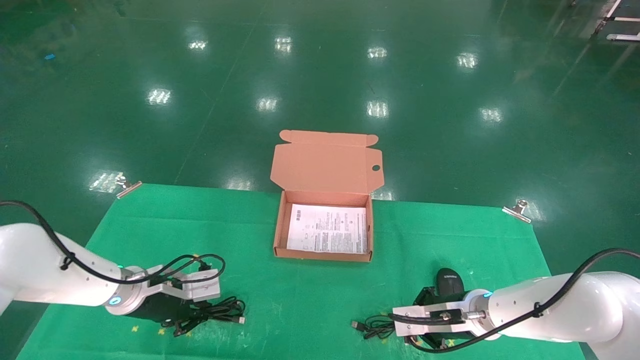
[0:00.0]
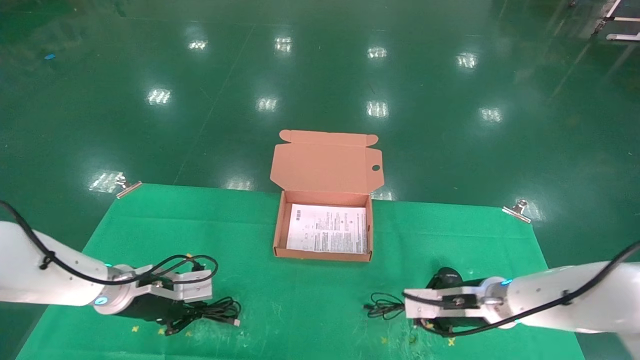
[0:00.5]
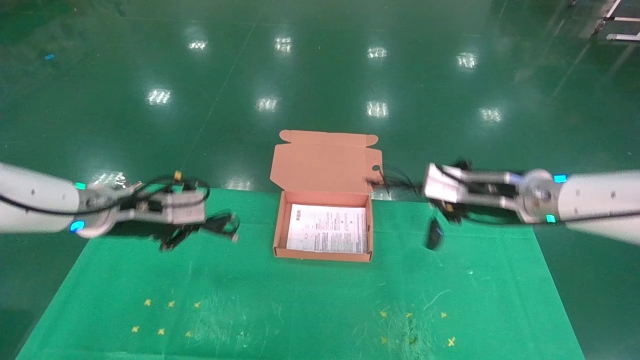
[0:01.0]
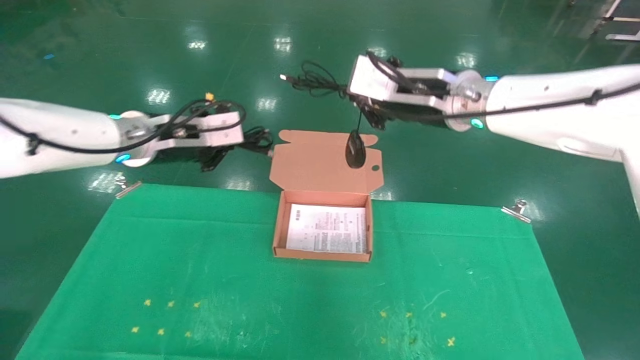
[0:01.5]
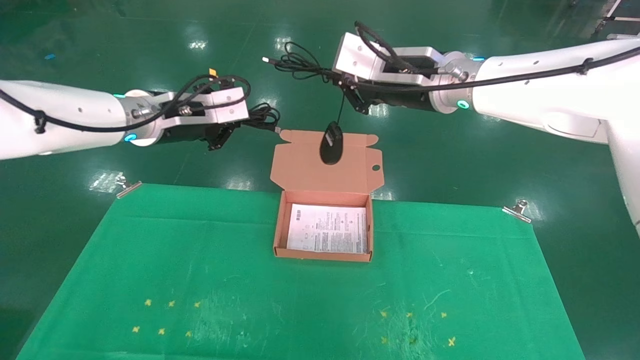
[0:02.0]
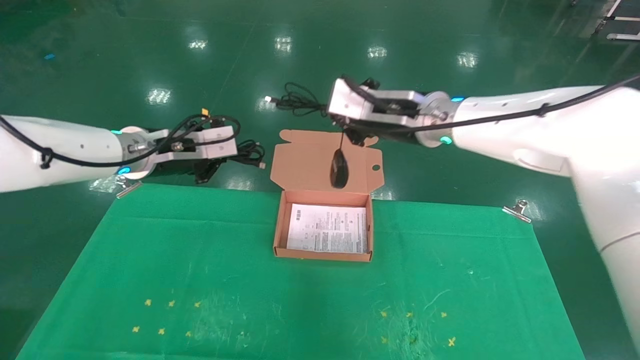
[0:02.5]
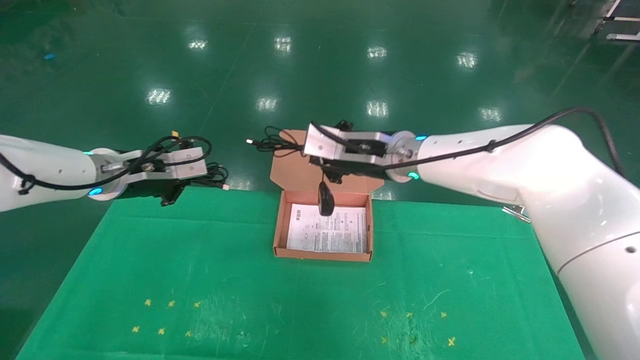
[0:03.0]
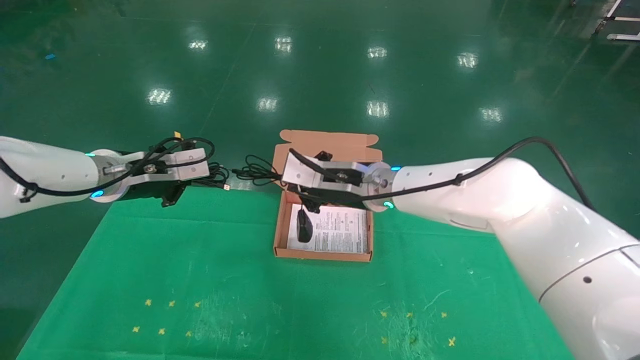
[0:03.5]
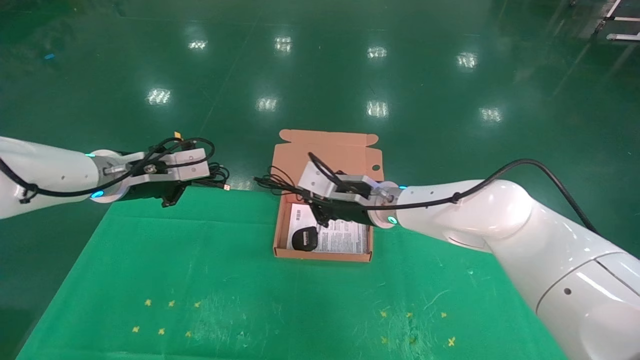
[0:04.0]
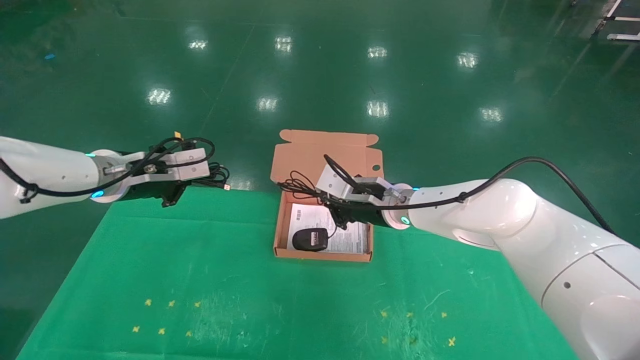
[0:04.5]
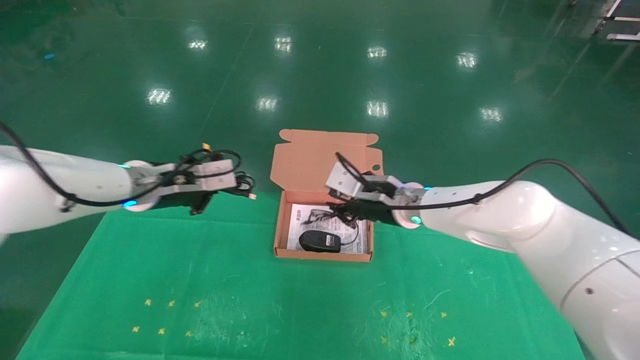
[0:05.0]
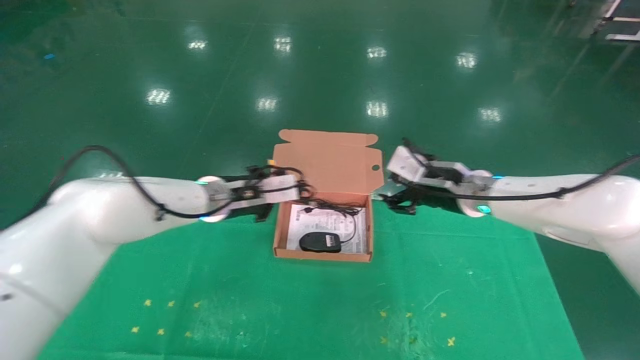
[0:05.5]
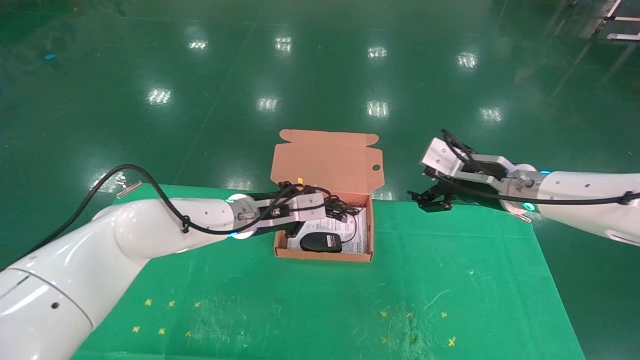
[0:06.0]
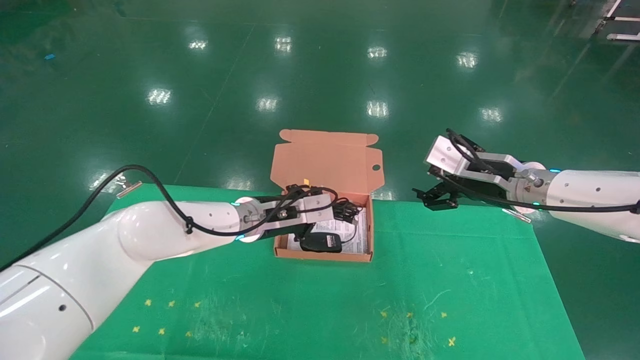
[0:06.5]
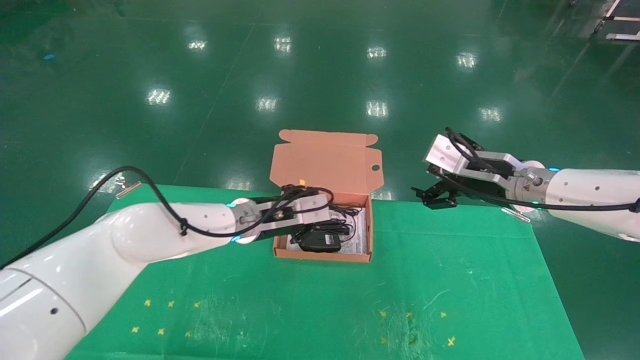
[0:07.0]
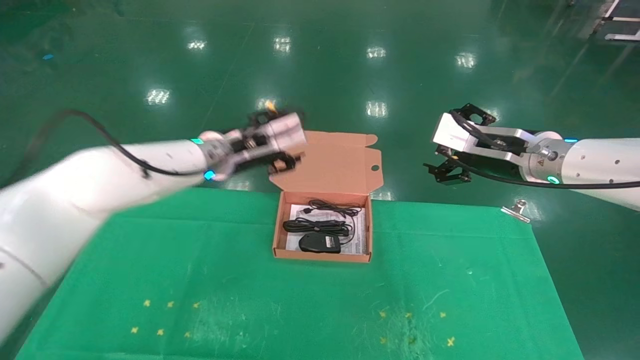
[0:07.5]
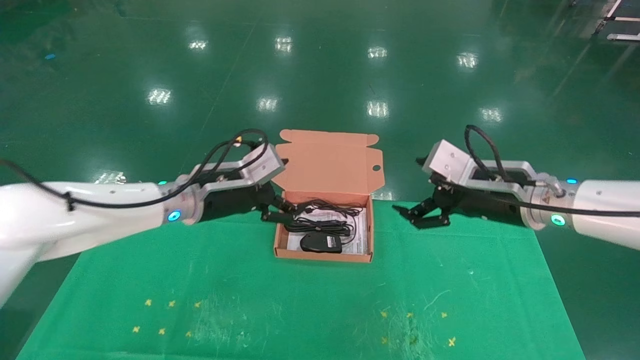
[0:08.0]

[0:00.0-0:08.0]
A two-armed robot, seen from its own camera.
Task of the whole recording: grasp data cable left put into box grasp mouse right put into box.
Step, 0:01.0 to 0:06.5: Place the mouse and power cord into the box.
0:00.0 to 0:02.0: Both grippers move upward, some 30 cm.
0:02.0 to 0:04.0: The left gripper heads downward and to the left, covering approximately 10 cm. The right gripper moves downward, roughly 20 cm.
0:04.0 to 0:06.0: The right gripper heads to the right, covering roughly 20 cm, and opens up. The left gripper goes some 20 cm to the right and downward.
0:06.0 to 0:08.0: The right gripper travels backward by approximately 10 cm, while the left gripper heads to the left and backward, covering some 10 cm, and opens its fingers.
